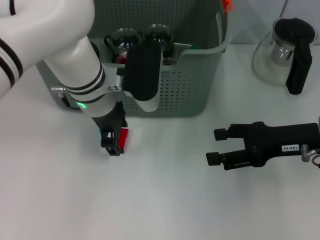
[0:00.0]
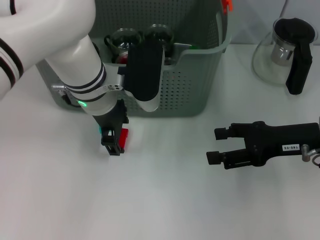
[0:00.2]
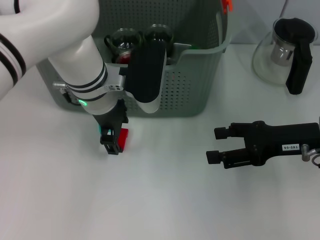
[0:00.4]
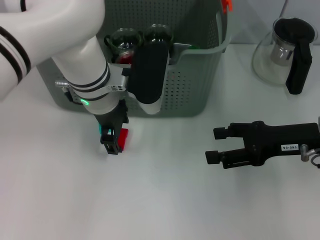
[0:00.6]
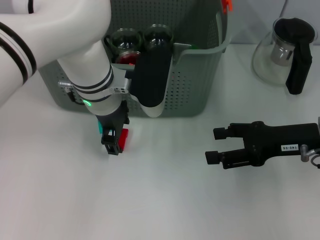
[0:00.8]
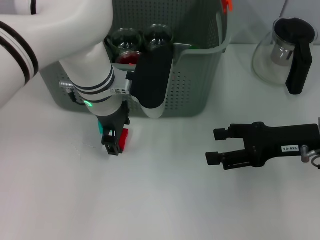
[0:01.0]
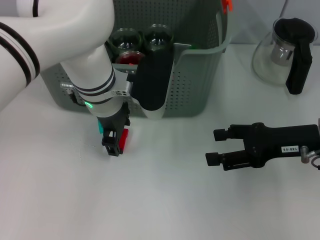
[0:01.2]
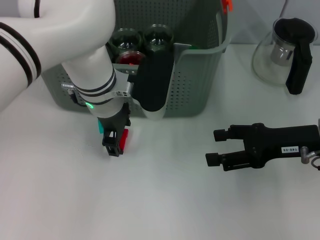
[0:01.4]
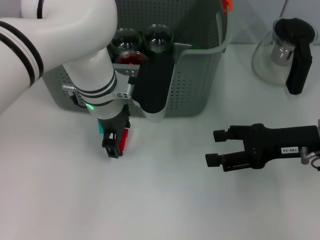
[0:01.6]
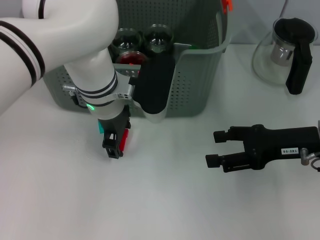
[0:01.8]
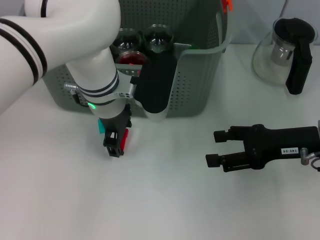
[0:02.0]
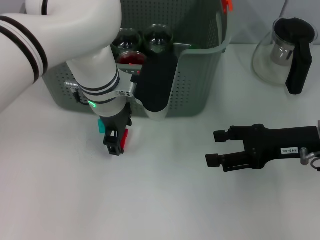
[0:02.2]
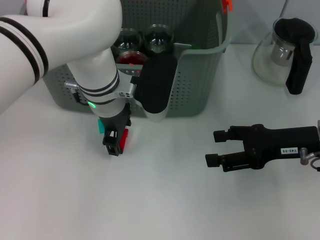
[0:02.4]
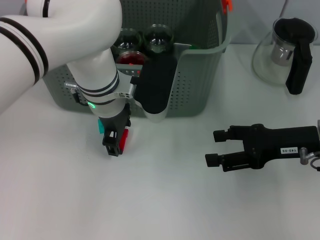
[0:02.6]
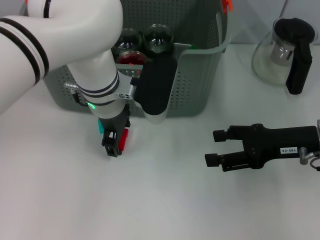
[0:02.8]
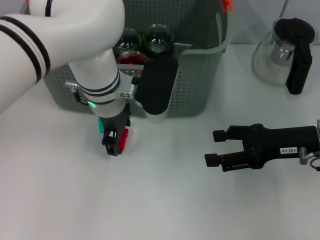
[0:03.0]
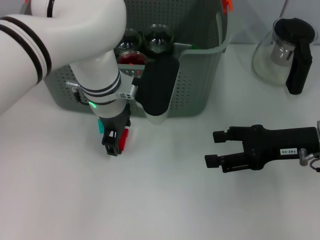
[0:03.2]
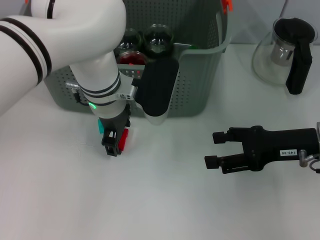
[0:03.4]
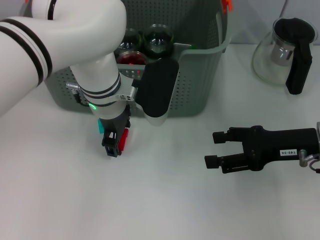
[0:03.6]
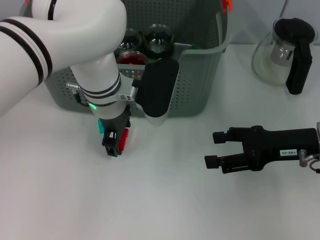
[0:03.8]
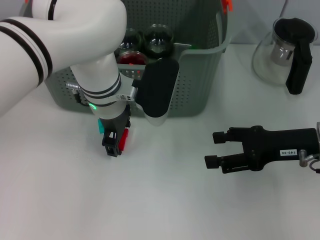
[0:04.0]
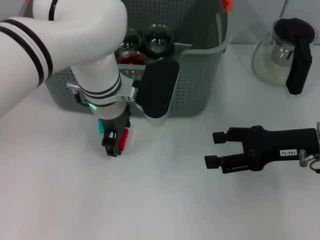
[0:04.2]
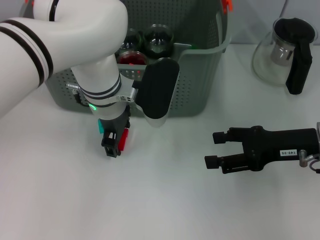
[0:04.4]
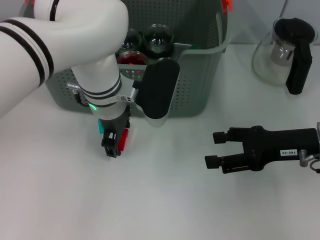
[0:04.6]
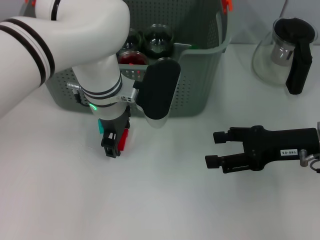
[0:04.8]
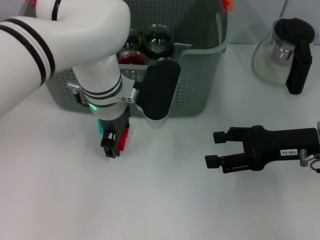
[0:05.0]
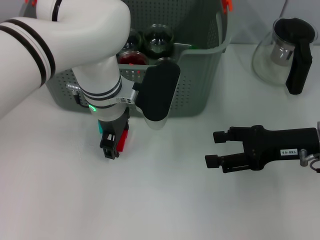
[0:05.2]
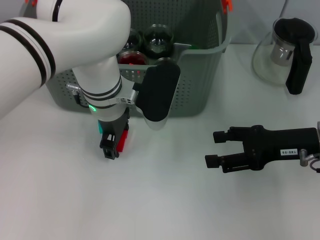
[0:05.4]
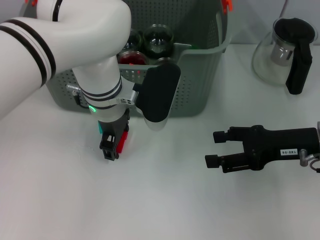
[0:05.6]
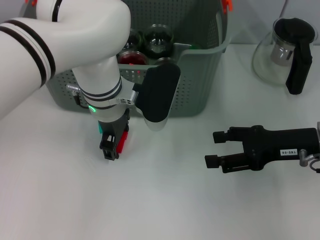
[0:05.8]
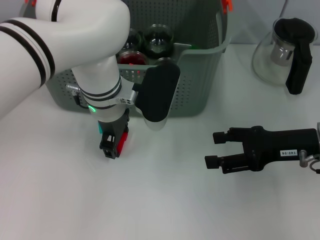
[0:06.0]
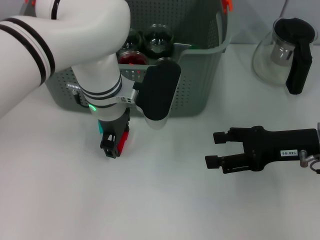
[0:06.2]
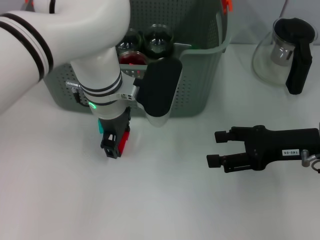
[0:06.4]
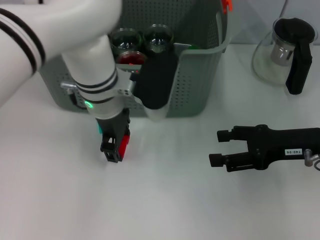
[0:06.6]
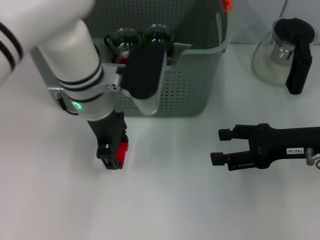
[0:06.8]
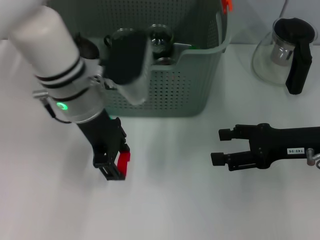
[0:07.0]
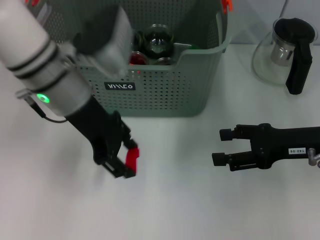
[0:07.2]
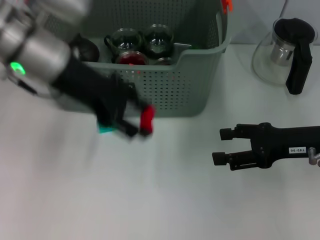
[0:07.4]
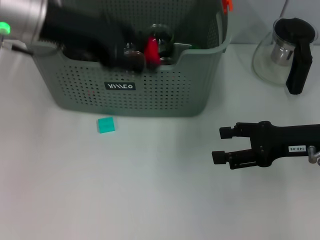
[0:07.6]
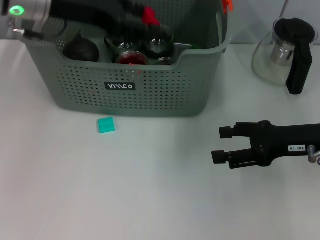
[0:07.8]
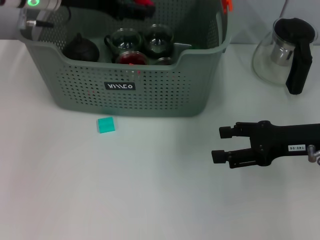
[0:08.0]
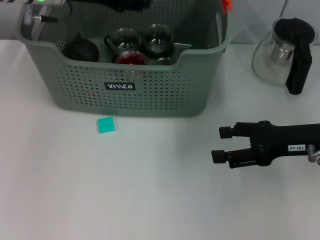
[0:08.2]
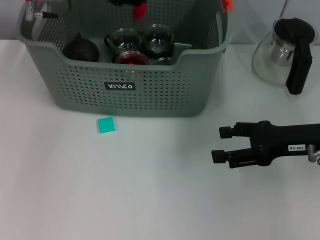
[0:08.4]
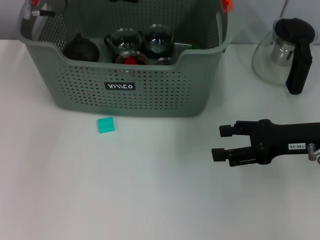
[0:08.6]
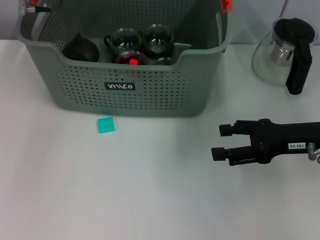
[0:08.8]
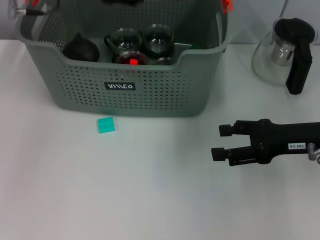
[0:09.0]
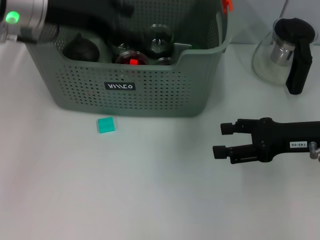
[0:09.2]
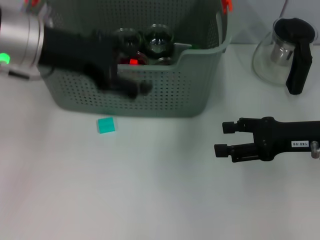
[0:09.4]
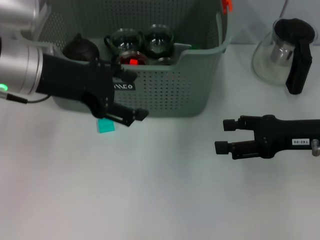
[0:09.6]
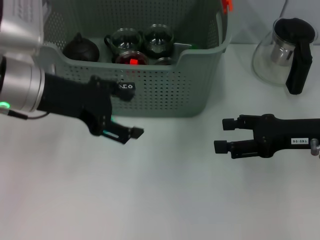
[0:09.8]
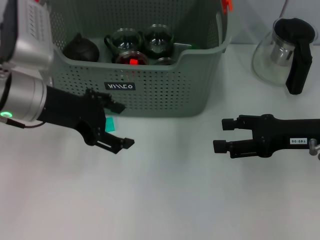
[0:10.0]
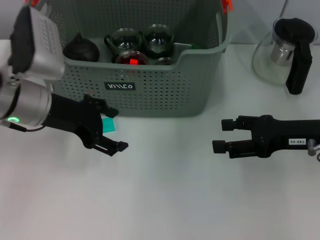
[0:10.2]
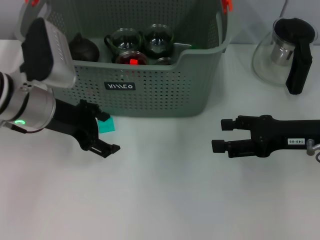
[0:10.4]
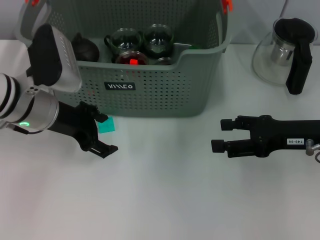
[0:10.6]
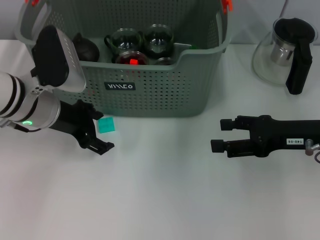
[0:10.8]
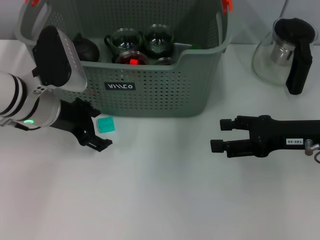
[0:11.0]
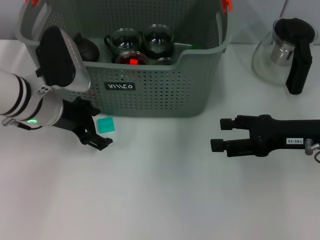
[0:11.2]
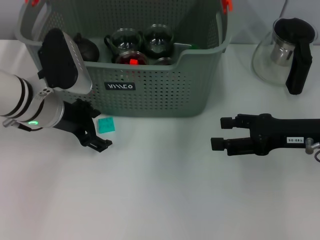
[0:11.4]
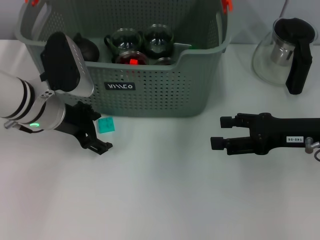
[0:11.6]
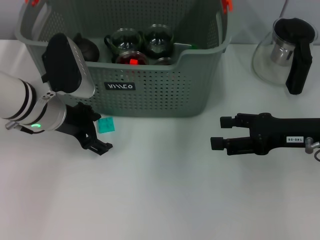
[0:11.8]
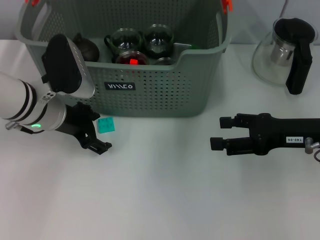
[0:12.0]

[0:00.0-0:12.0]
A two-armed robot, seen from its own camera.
Task of the whole recording: pick up the teacup on the table and place it into the storage bin, pick up the block on the table and place it into the storage bin.
Step, 0:00.0 to 0:06.2: Grasp the red block with left gripper.
Step, 0:06.4 to 0:08.4: Place the red block in the storage box with left gripper.
0:00.0 to 0:01.6: The grippers make only small movements.
0:01.6 to 0:04.4: Both grippers stay put.
0:04.4 to 0:06.0: The two grippers keep their place.
0:06.0 to 0:07.6: The left gripper travels upward and to the left by roughly 20 cm.
0:07.6 to 0:09.0: The left gripper is displaced forward by roughly 5 cm.
0:09.0 to 0:10.4: The left gripper moves downward and backward, about 15 cm.
0:10.4 to 0:12.0: The grippers make only small movements.

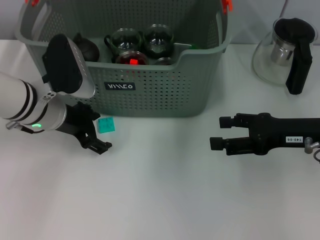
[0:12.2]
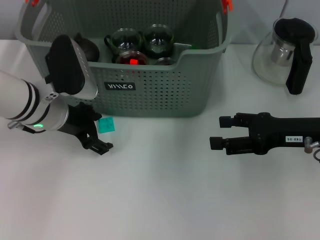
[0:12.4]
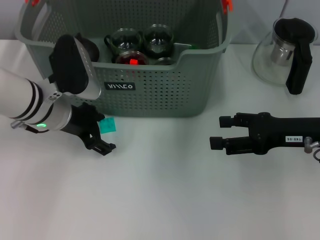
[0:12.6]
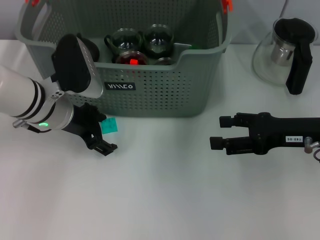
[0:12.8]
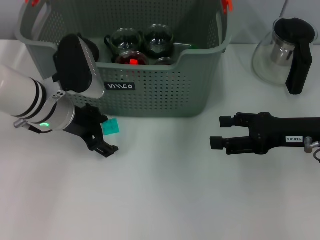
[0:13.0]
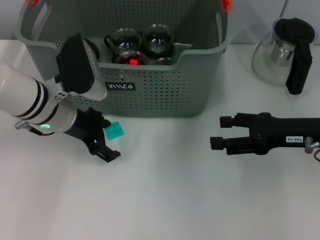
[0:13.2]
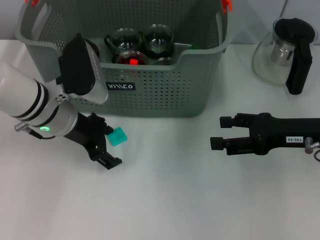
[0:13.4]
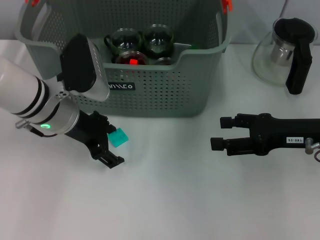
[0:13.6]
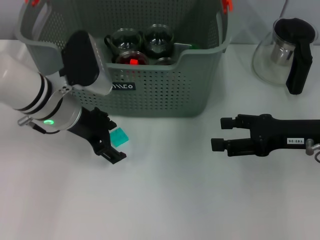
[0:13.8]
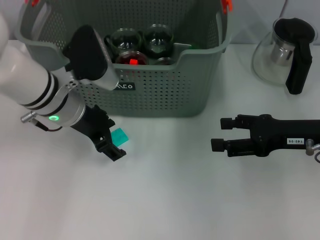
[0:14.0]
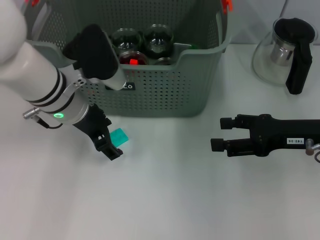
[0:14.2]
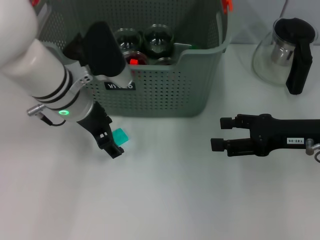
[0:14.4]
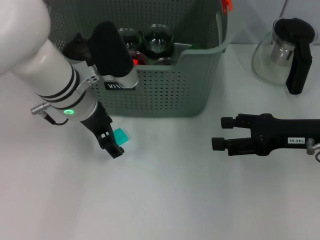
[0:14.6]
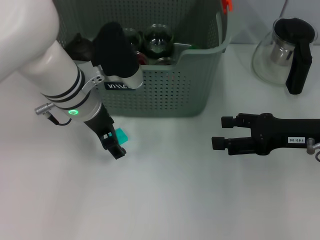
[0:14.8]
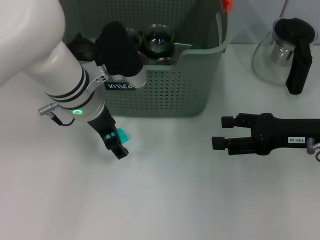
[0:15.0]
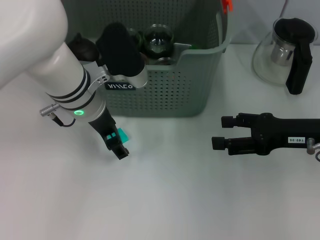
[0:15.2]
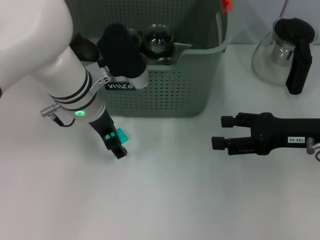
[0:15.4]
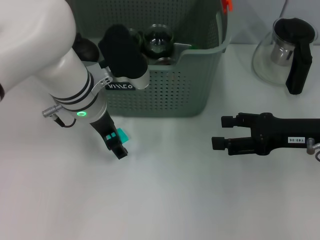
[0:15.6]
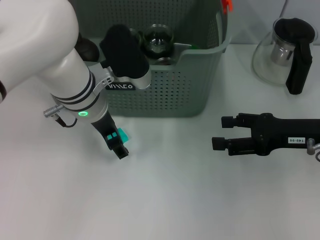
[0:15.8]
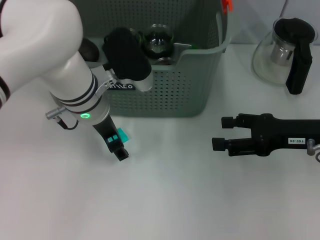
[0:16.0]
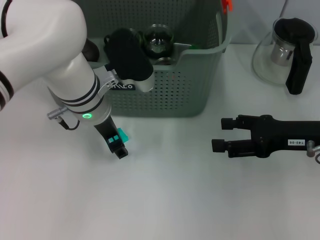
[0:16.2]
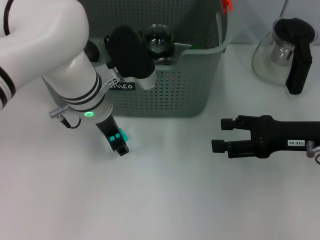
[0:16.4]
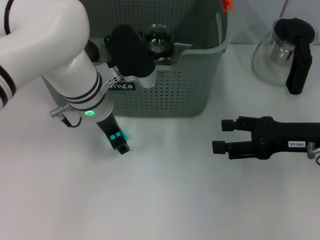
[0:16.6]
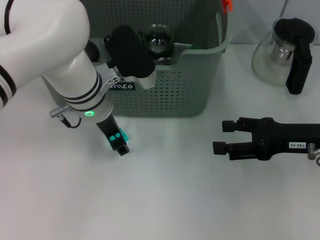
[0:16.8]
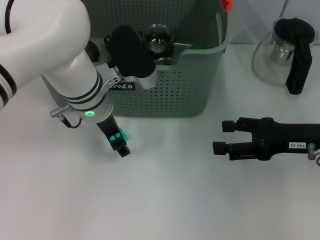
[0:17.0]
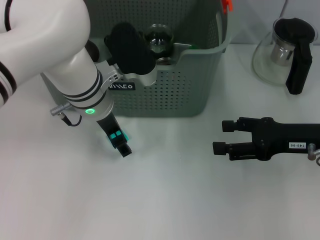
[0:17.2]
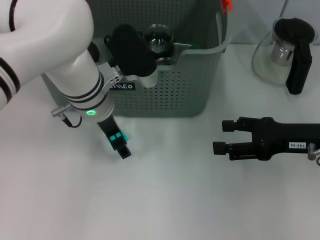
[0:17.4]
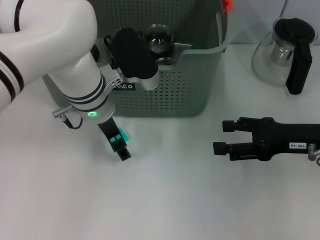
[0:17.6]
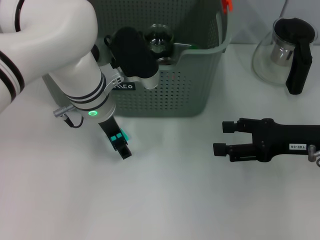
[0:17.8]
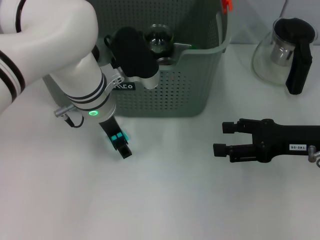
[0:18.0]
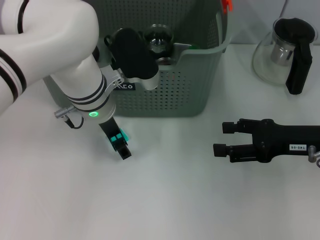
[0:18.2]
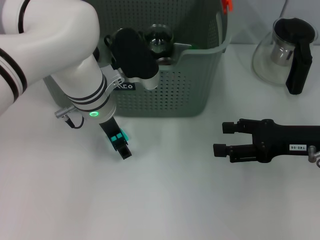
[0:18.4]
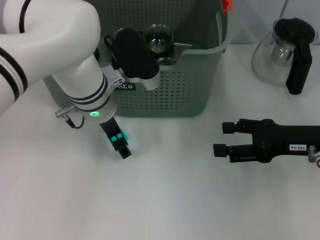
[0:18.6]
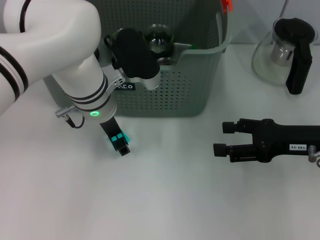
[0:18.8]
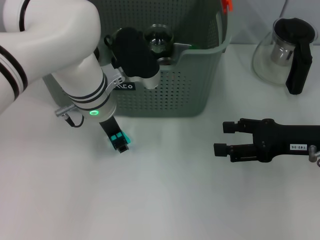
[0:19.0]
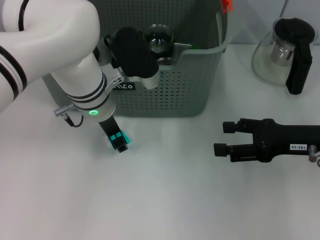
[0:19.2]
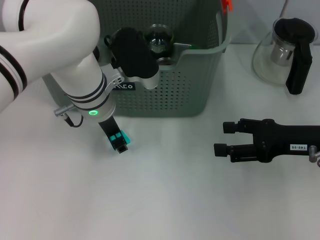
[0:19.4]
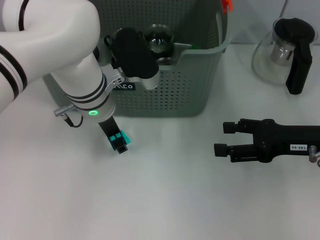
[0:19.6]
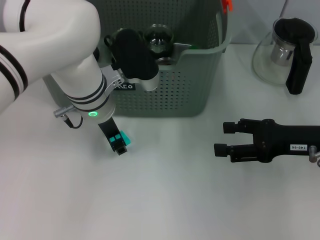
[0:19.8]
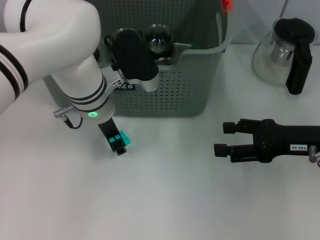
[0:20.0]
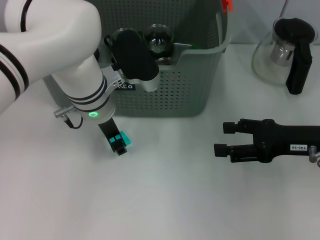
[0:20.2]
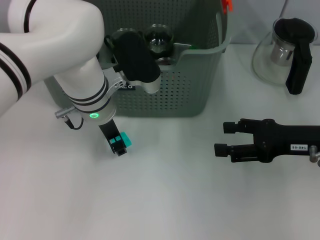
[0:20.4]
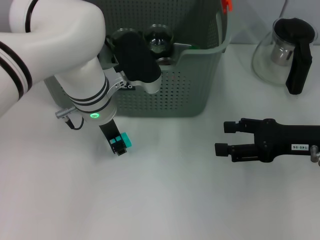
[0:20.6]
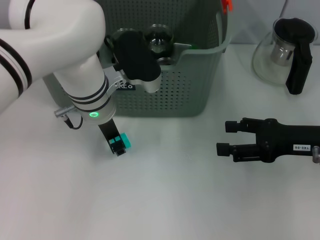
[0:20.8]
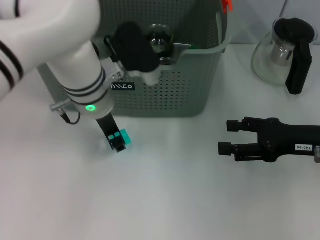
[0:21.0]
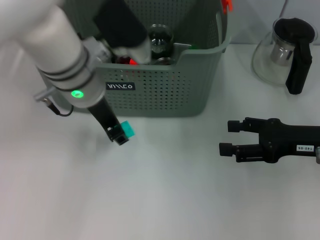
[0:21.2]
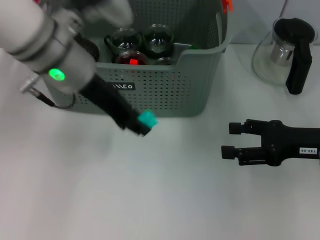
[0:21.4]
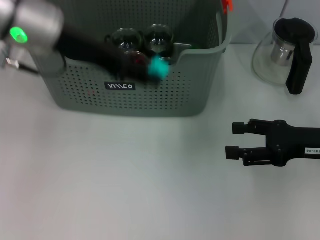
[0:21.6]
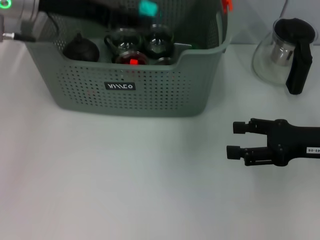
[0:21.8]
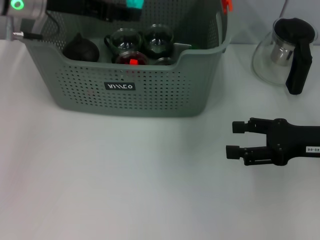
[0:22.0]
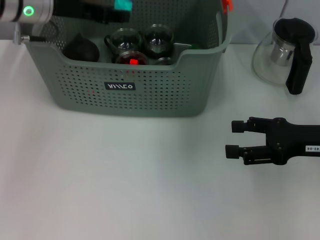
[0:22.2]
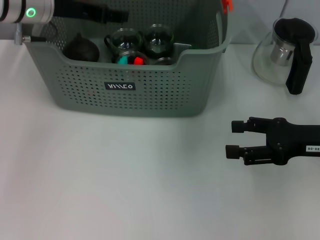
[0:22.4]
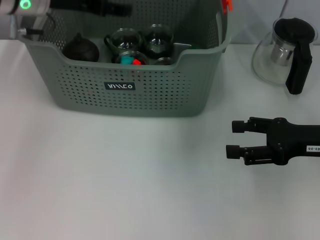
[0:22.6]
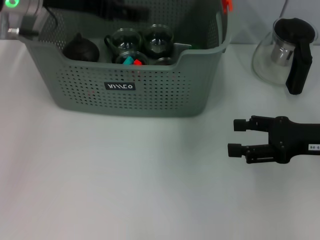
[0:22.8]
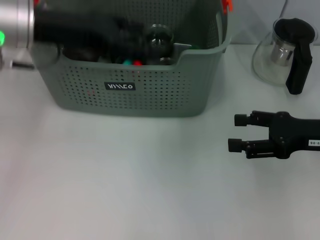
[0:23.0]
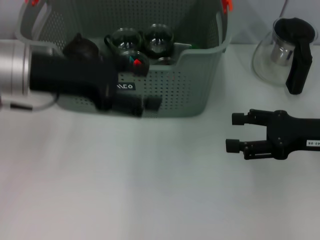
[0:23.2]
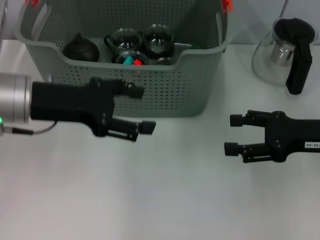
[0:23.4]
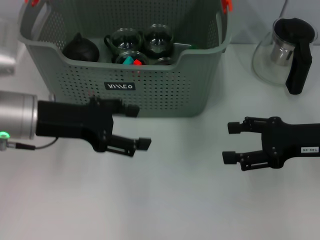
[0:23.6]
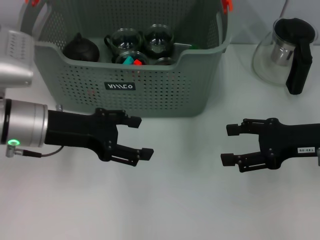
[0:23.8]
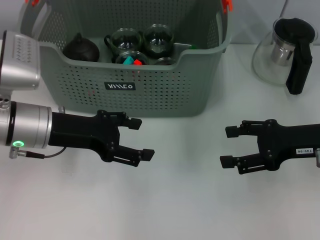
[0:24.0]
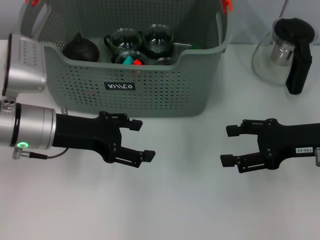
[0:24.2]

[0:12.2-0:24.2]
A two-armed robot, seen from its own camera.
Task of the whole recording: pick up the teacup on the table and place it into the storage bin, pick up the block on the table and place it into the storage bin.
Step, 0:12.2 to 0:20.6: Grasp the light blue block with left gripper.
Step, 0:20.8 to 0:22.4: Place the light blue block in the storage box with left gripper.
0:12.2 to 0:13.8: The grippers stay close to where they were, moving slightly.
0:13.8 to 0:15.2: The left gripper travels to the right by approximately 5 cm.
0:15.2 to 0:16.6: The grippers stay close to where they were, moving slightly.
0:16.6 to 0:18.2: Both grippers stay about where they are.
0:18.2 to 0:19.8: The left gripper closes up.
0:19.8 to 0:21.2: The left gripper heads upward, covering approximately 5 cm.
0:21.2 to 0:22.6: The left gripper moves to the left and forward, some 10 cm.
0:22.6 to 0:24.2: The left gripper shifts approximately 15 cm backward and downward.
